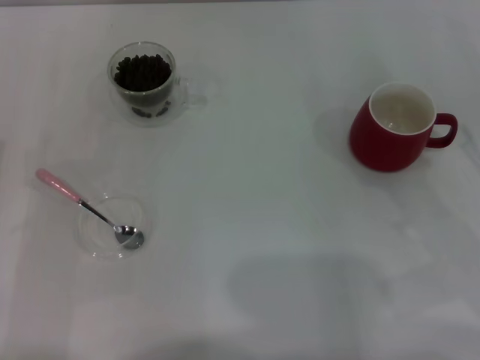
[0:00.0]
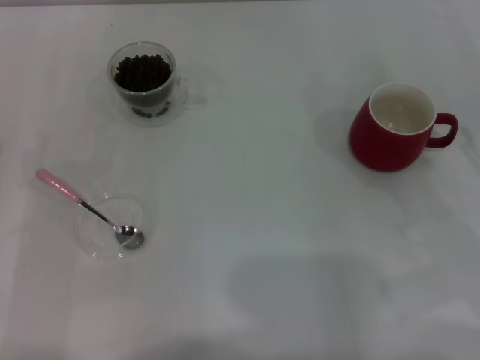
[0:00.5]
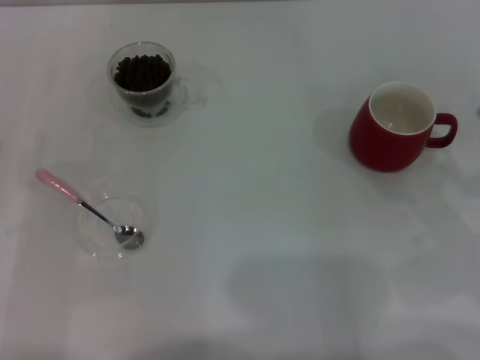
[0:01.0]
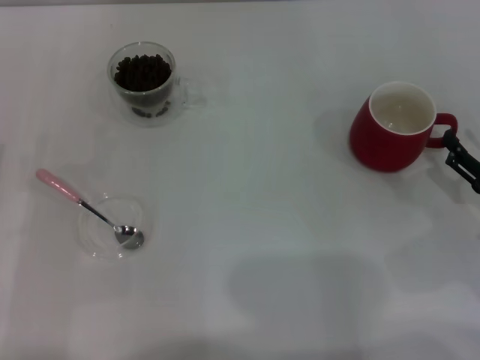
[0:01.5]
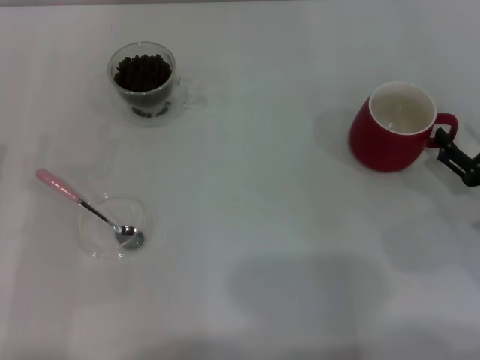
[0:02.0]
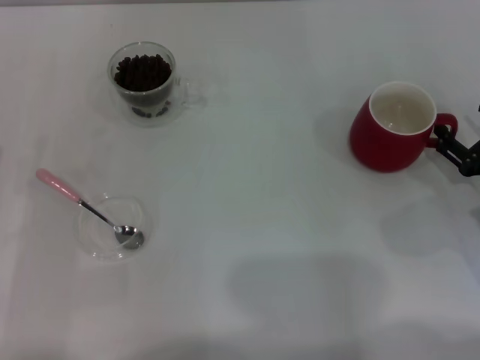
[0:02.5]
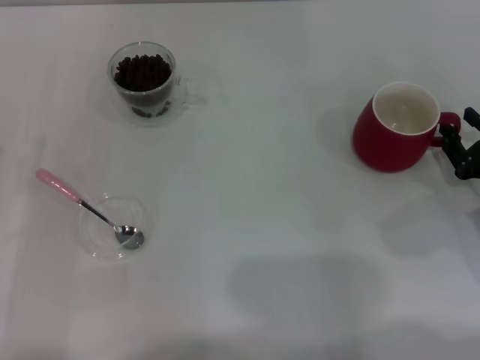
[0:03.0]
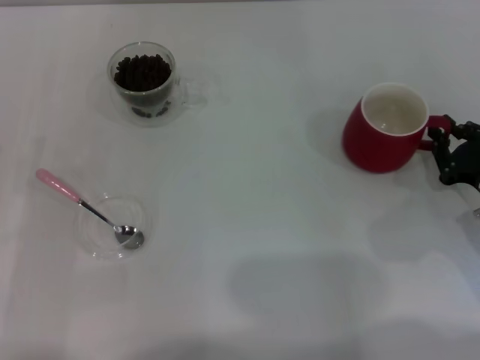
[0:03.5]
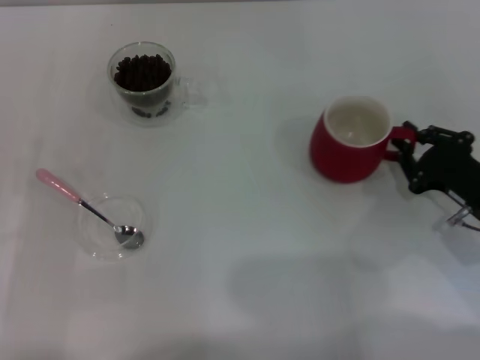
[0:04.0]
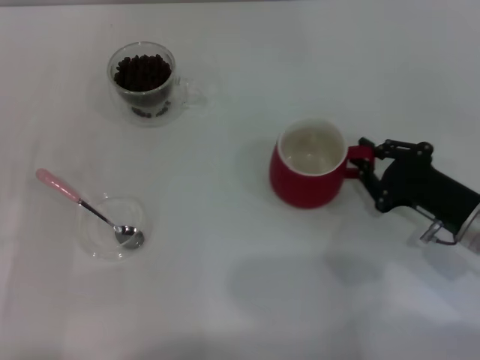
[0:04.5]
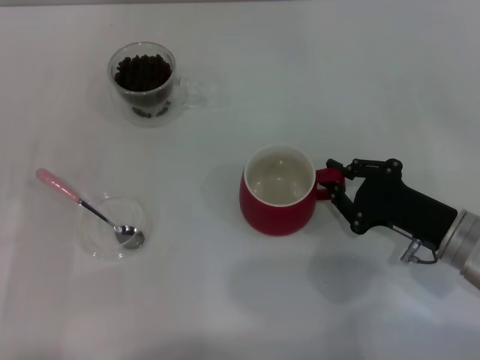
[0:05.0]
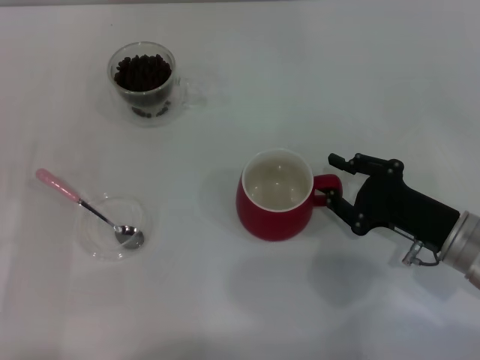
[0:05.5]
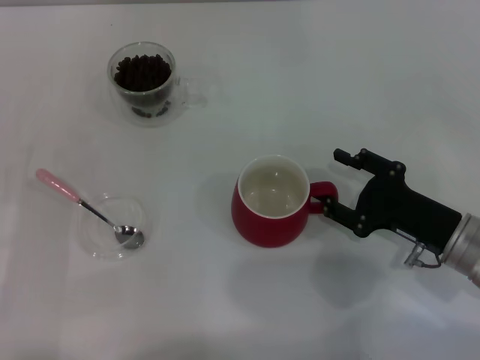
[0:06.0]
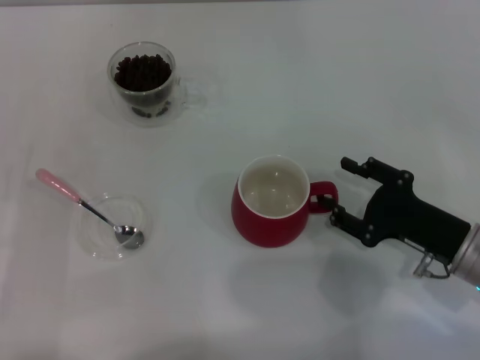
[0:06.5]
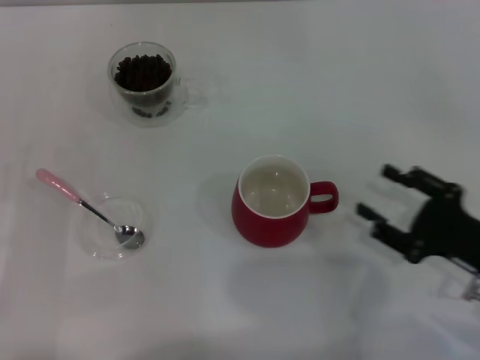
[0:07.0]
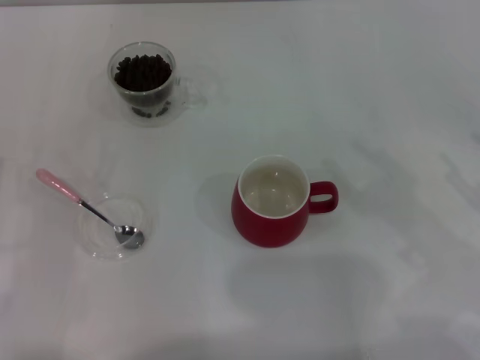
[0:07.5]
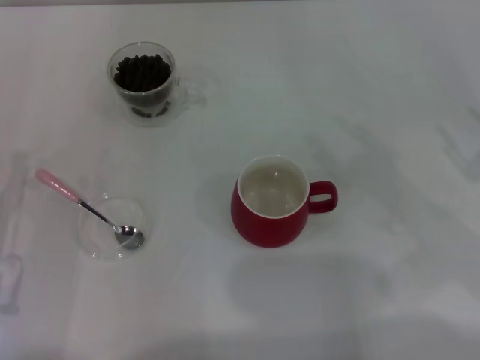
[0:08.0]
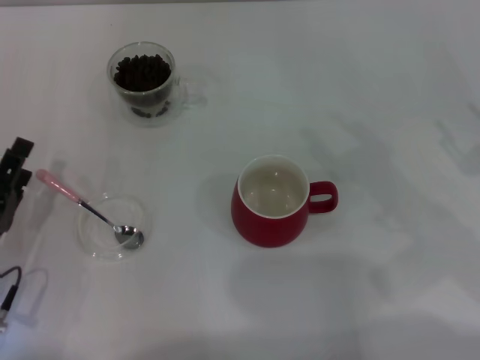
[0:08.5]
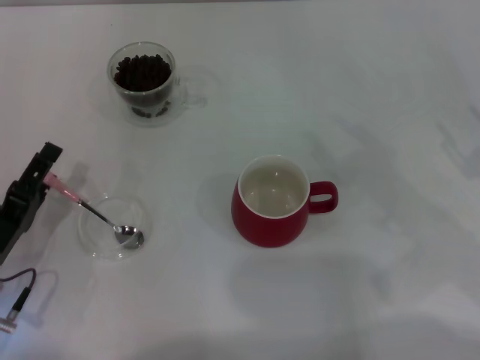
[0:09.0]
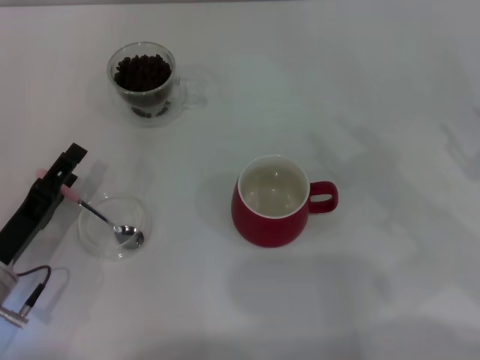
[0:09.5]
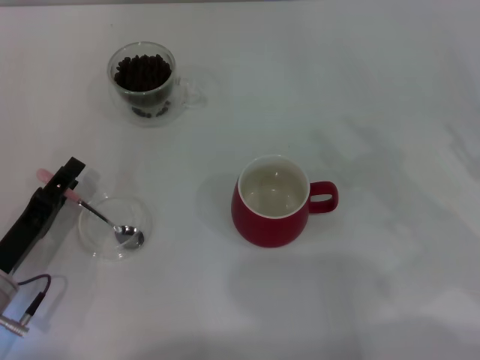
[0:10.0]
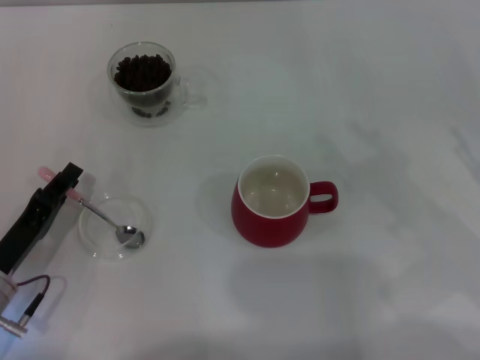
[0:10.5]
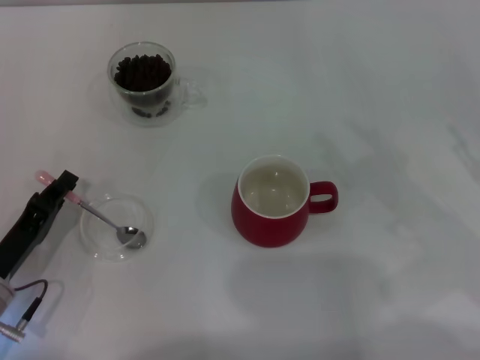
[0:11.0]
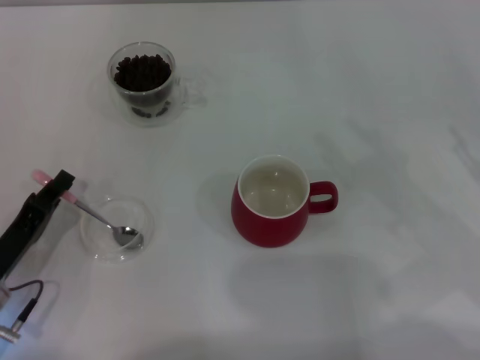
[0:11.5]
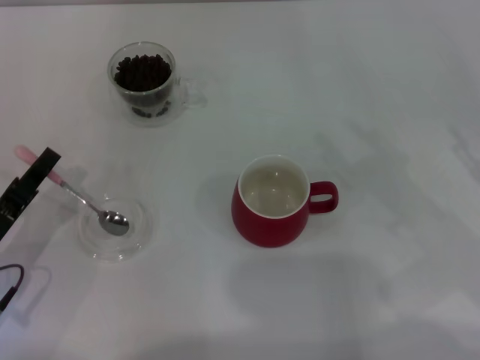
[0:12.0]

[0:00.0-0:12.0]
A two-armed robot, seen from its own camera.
Task of the whole recording: Use a pink spoon to take out the coffee beans from the glass and pour them into the red cup.
0:00.0 to 0:02.0: The right gripper heads downward, covering about 5 cm.
0:02.0 to 0:04.0: The right gripper closes.
0:04.0 to 0:06.0: The right gripper opens its fingers.
0:06.0 to 0:08.0: The right gripper moves to the right and upward, roughly 15 cm.
0:10.0 to 0:12.0: The left gripper closes.

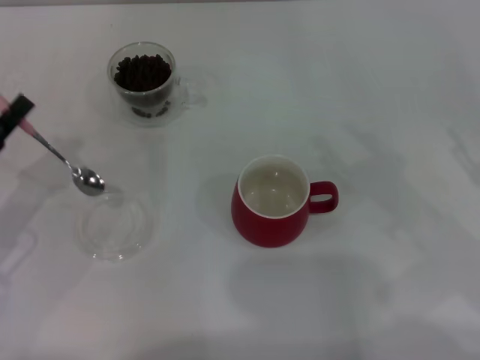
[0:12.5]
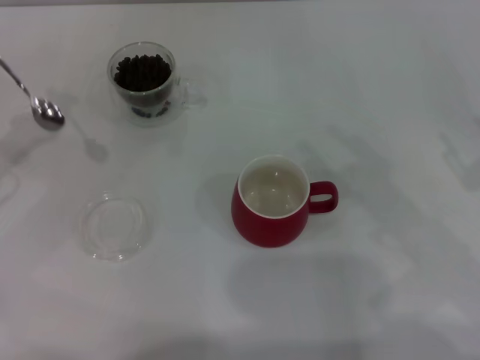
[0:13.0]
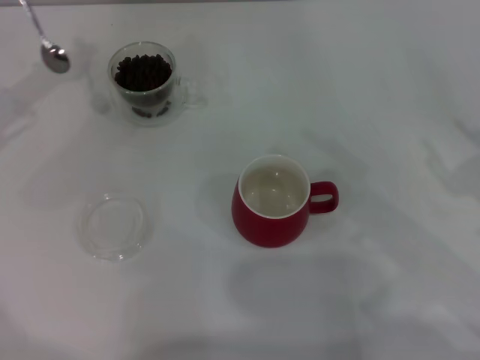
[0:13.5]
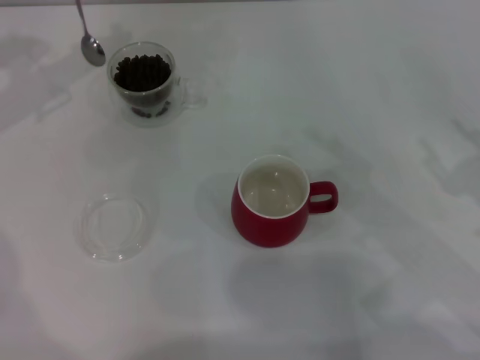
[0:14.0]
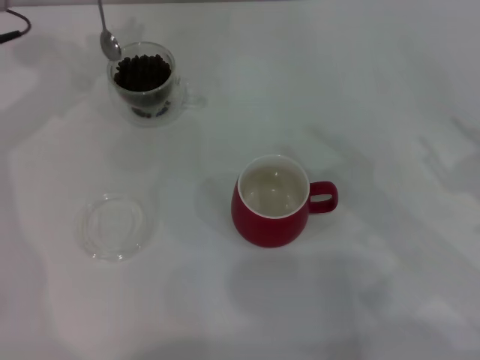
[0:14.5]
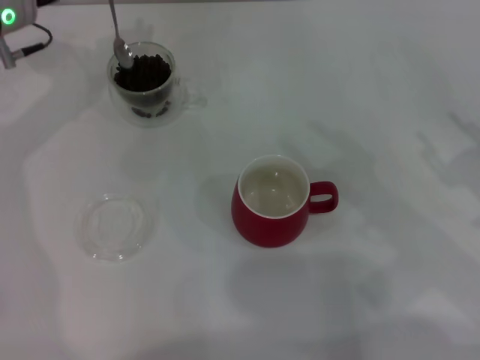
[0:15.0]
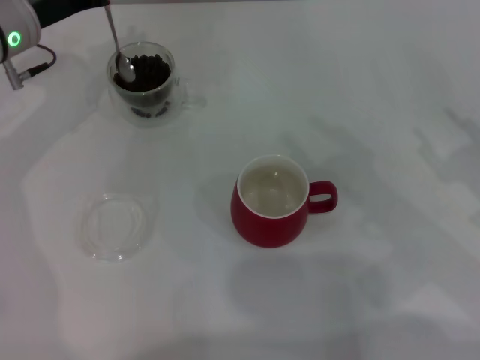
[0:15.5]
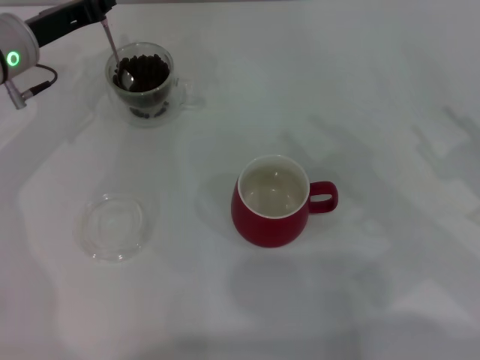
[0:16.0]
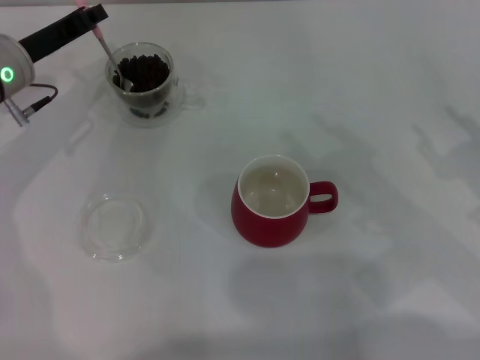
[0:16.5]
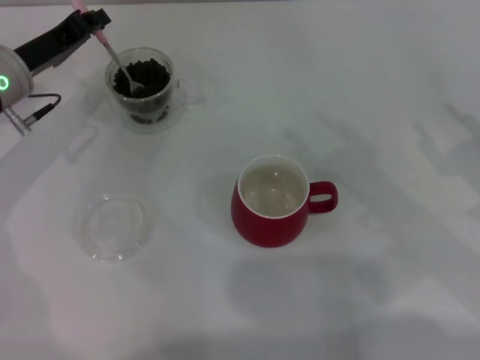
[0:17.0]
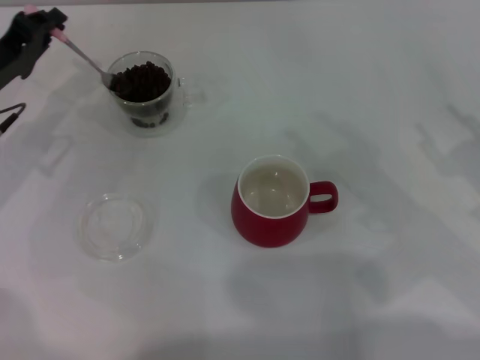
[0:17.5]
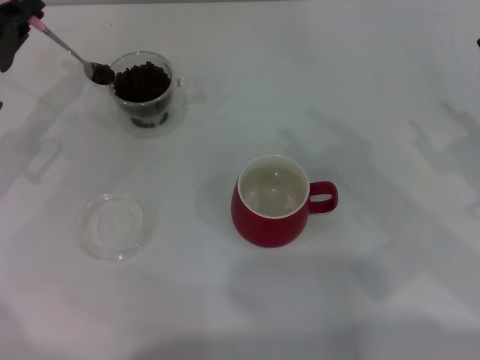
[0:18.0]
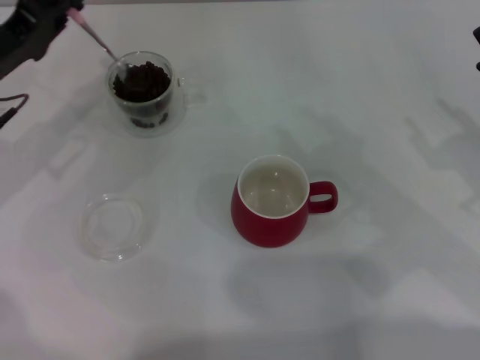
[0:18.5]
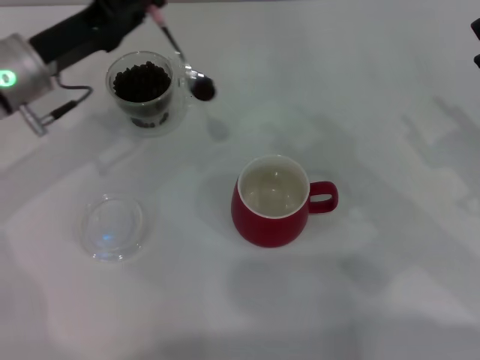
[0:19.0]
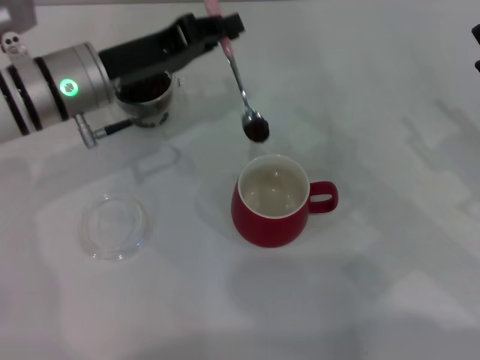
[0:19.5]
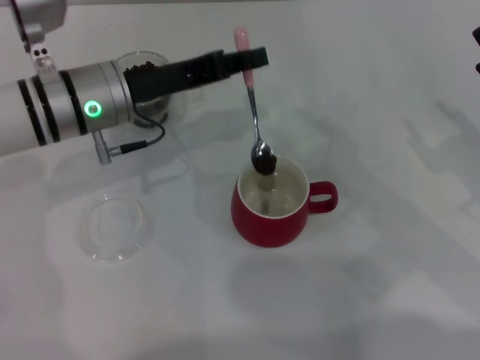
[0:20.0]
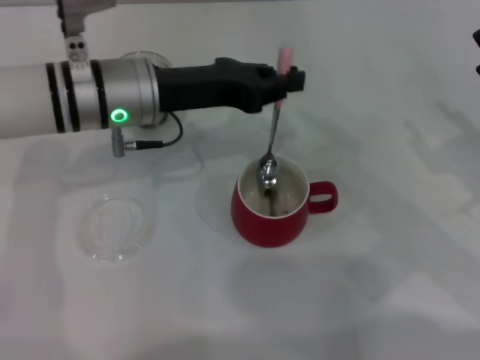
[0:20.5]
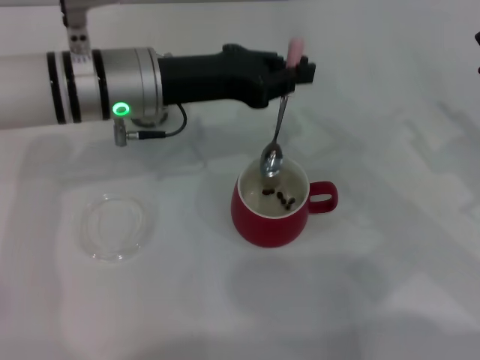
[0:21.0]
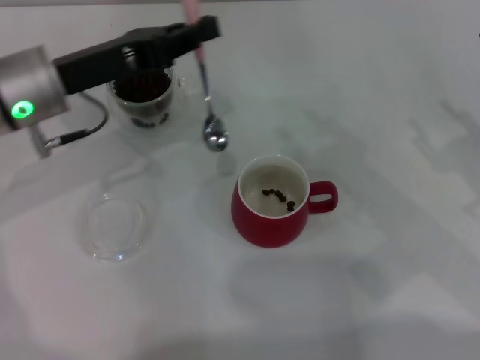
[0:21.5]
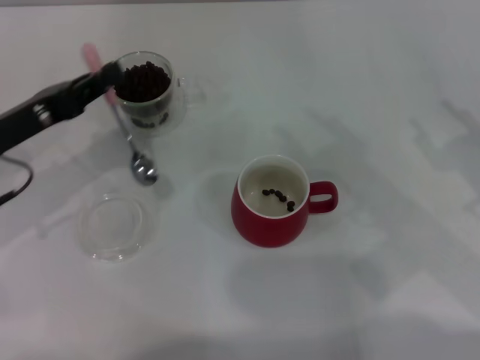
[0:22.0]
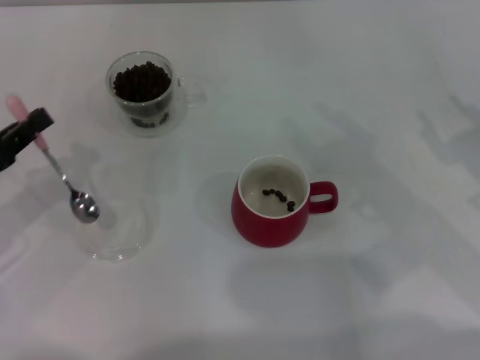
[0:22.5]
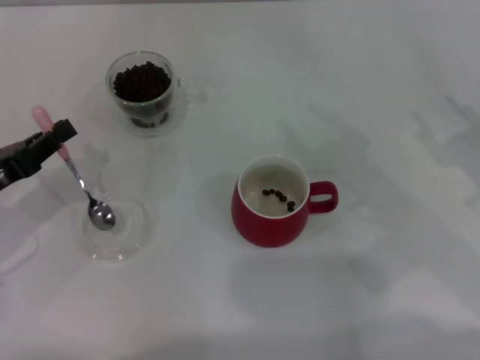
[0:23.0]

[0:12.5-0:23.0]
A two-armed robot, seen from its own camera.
Task of the whole recording: Use a pink spoon to take out the coffee beans from the glass and pour them into the red cup.
0:12.5 to 0:14.5: The left gripper shifts roughly 25 cm forward and upward.
0:14.5 to 0:16.5: The left gripper travels downward by some 5 cm.
0:16.5 to 0:19.0: The left gripper moves approximately 5 cm to the left and comes back.
0:19.0 to 0:21.0: The left gripper moves to the right, about 10 cm.
0:21.0 to 0:23.0: The left gripper goes roughly 25 cm to the left, backward and downward.

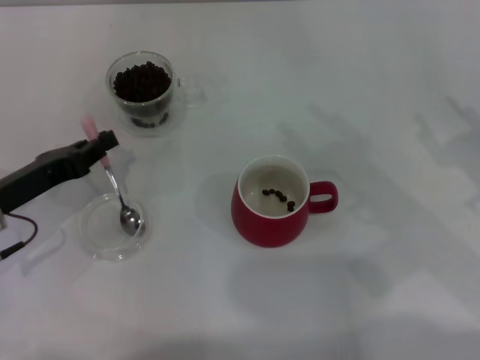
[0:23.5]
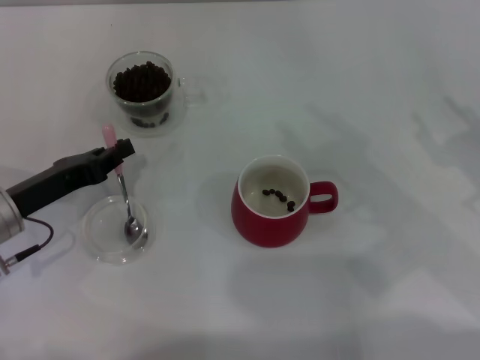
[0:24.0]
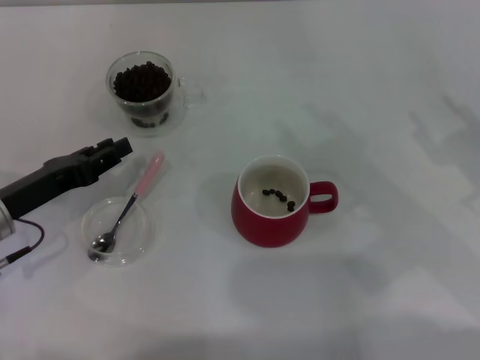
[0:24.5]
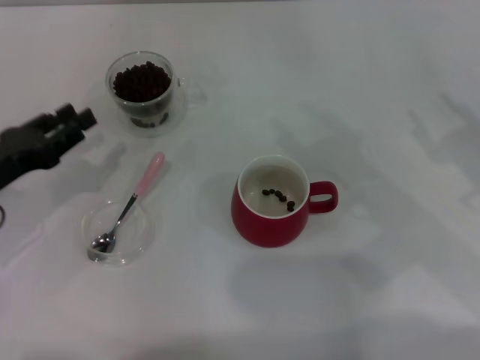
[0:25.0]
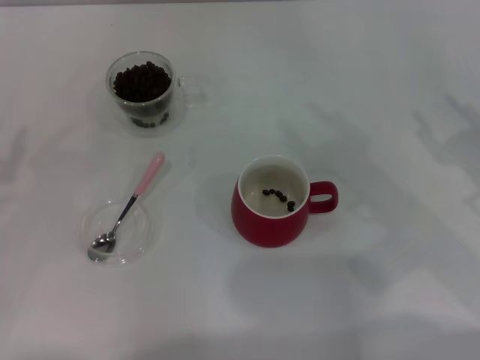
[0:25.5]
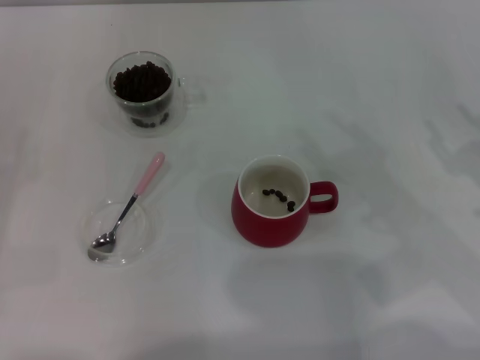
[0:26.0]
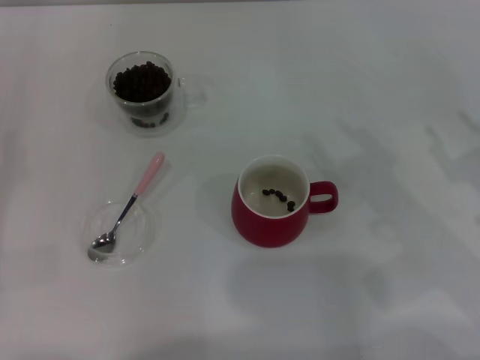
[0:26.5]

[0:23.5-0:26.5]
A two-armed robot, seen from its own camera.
Task of the whole recording: Use a pink spoon to take out the coffee beans from the glass and pour them into the red cup.
0:23.5 to 0:25.0: The left gripper opens up.
0:25.0 to 0:26.5: The left gripper heads to the left and backward, covering some 10 cm.
